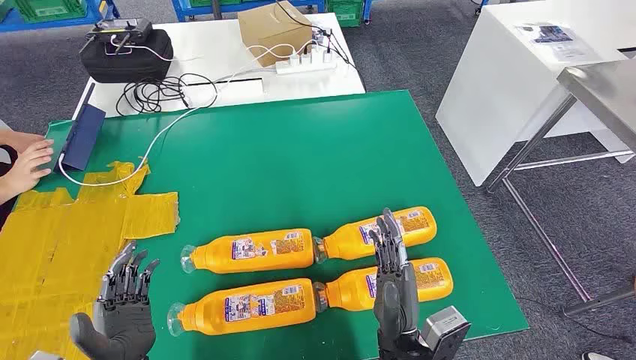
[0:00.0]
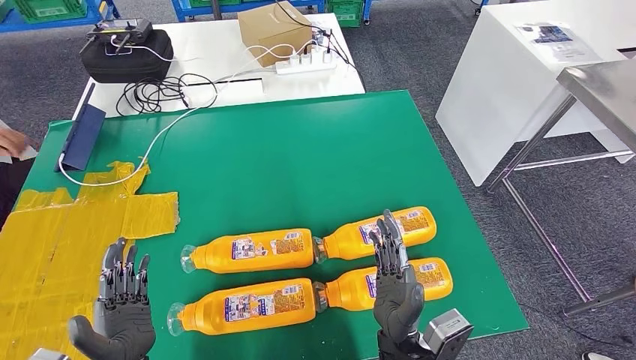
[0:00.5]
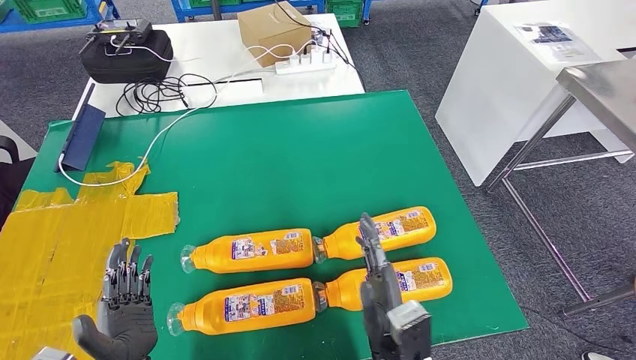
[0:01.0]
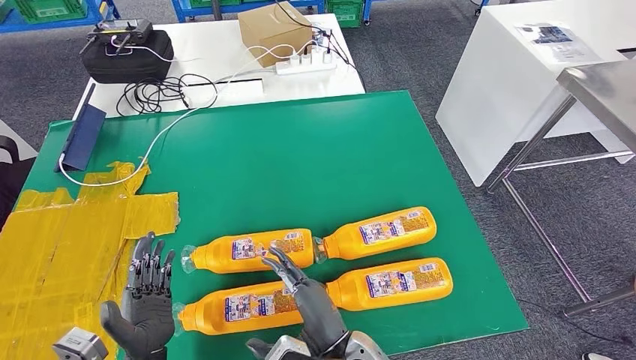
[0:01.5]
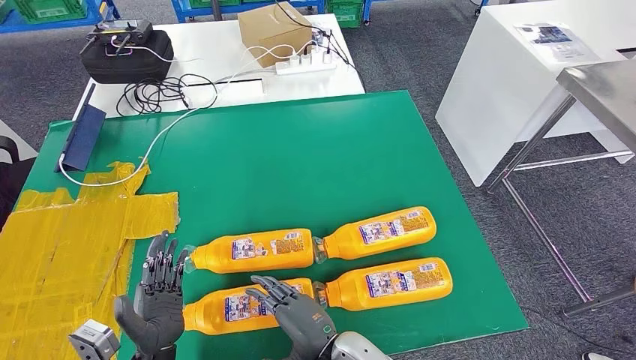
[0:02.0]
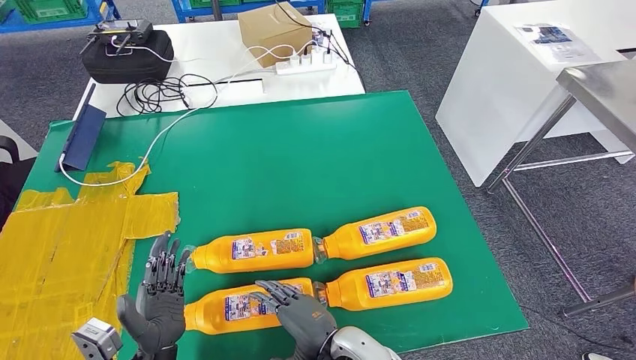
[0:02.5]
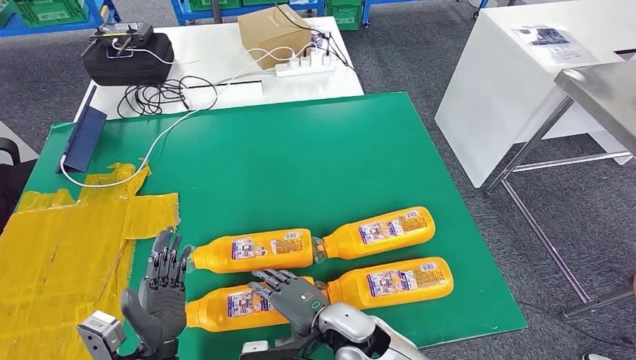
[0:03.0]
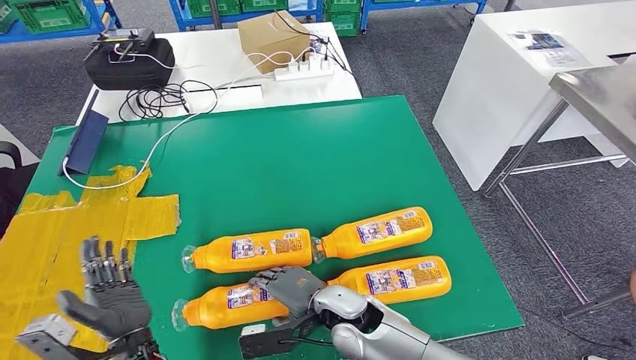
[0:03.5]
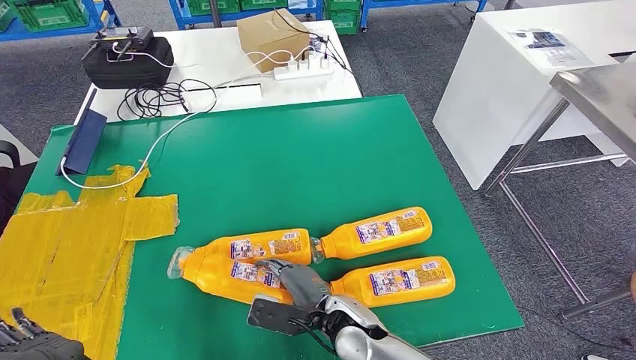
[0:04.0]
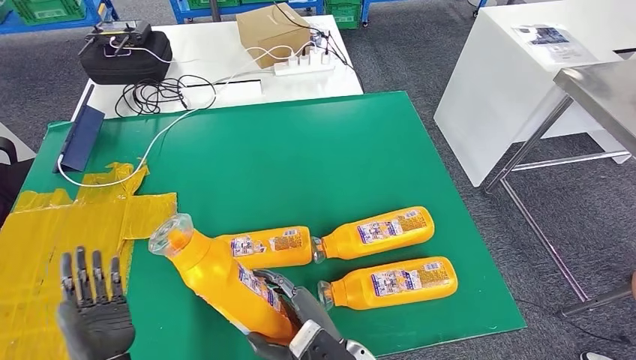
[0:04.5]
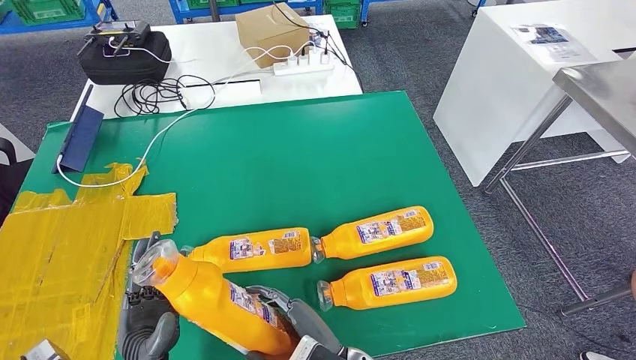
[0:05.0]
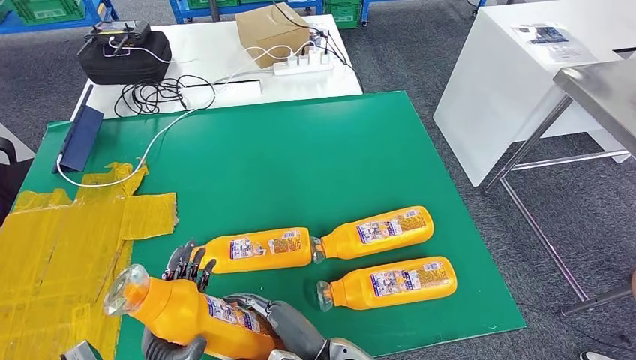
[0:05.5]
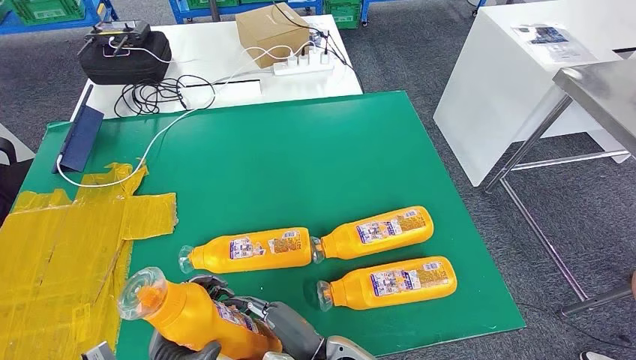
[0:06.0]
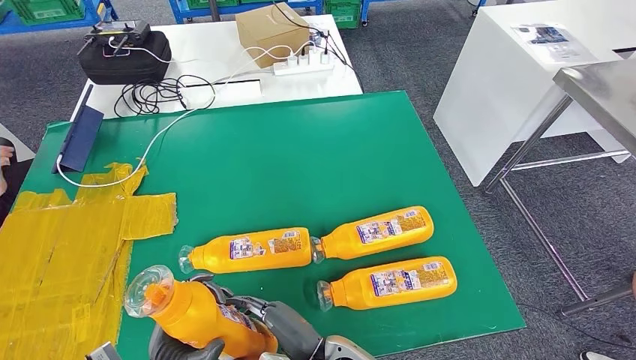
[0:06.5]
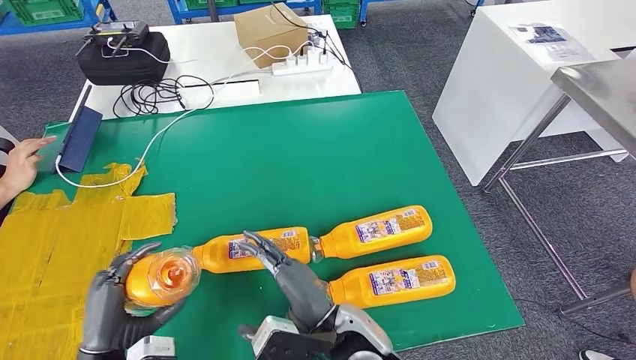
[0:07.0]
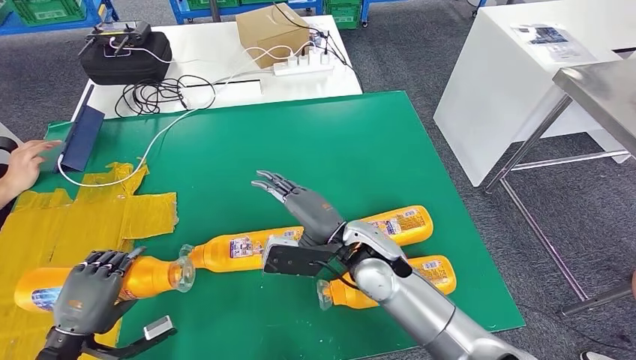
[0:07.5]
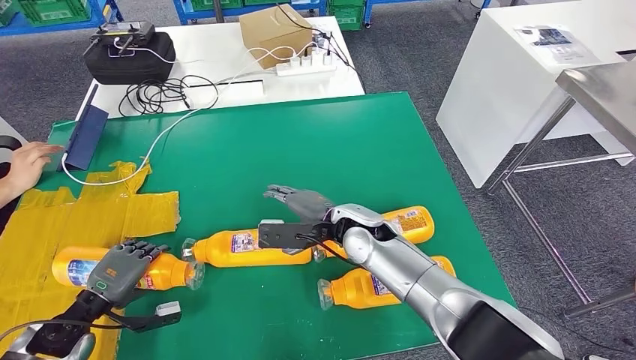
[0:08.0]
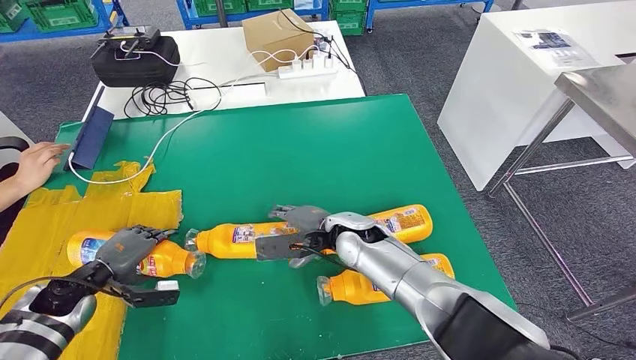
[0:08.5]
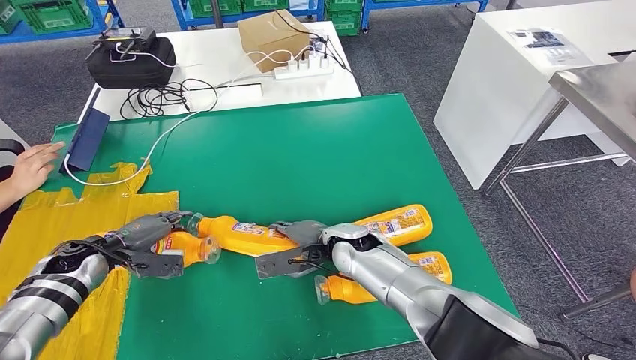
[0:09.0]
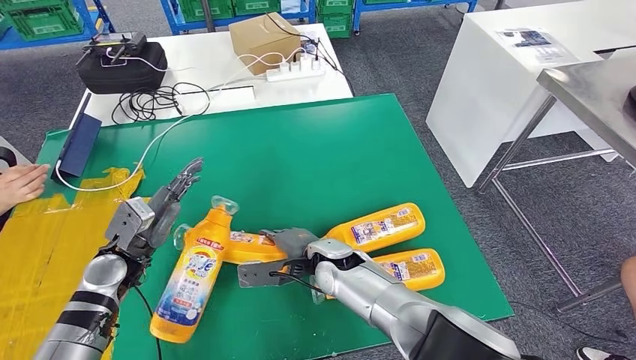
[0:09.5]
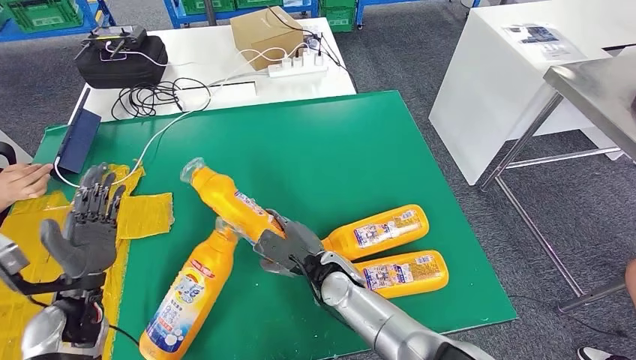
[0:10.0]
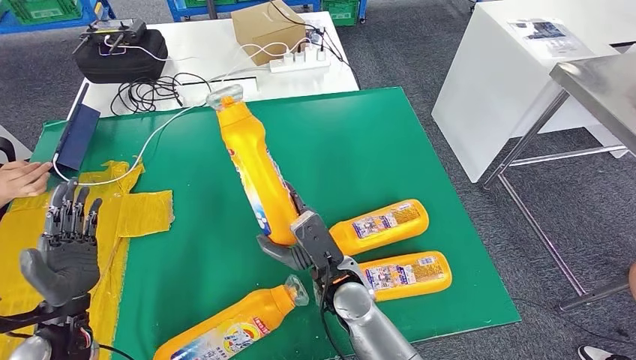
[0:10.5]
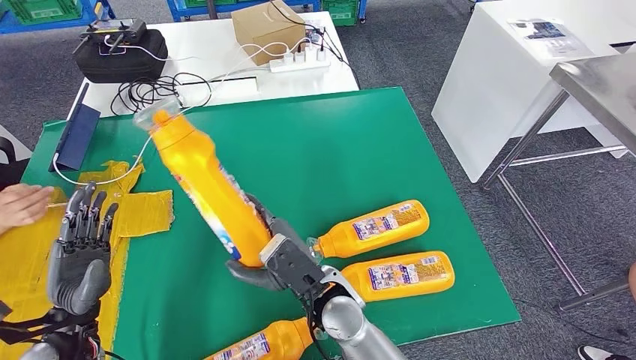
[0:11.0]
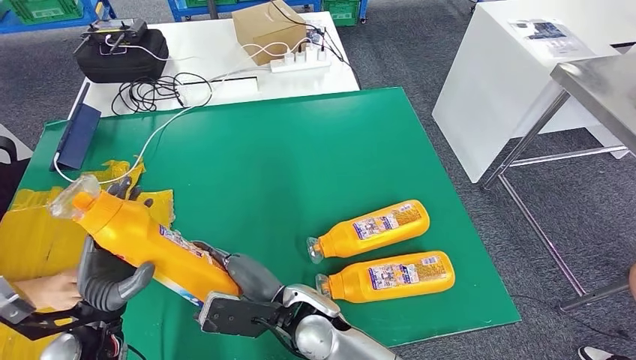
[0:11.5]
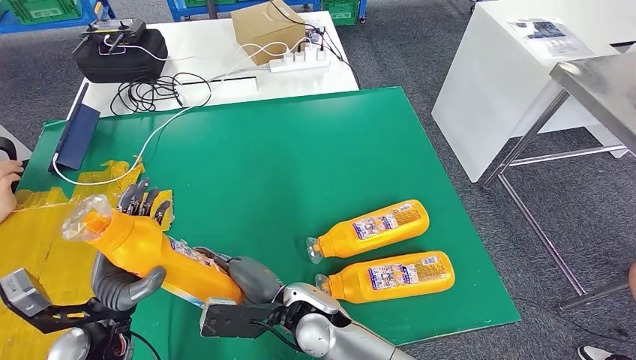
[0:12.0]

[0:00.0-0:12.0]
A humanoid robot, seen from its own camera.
Step, 0:00.0 to 0:05.5: Take the fast-moving consumer goods bottle from the table.
Step, 0:06.5 to 0:09.0: Flip the fast-moving consumer goods bottle to the front side.
Step, 0:09.5 to 0:11.5: Pick up the fast-moving consumer goods bottle from the table.

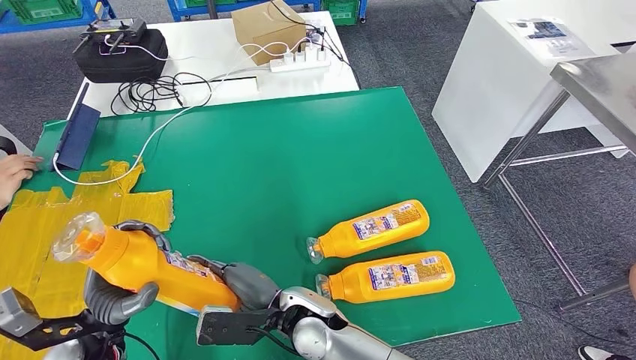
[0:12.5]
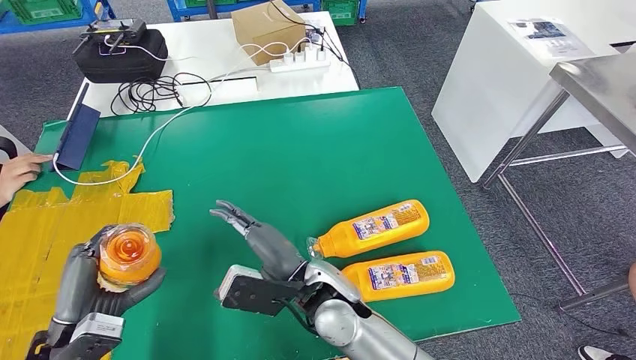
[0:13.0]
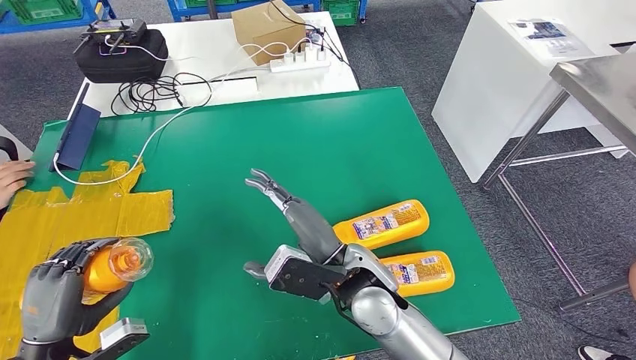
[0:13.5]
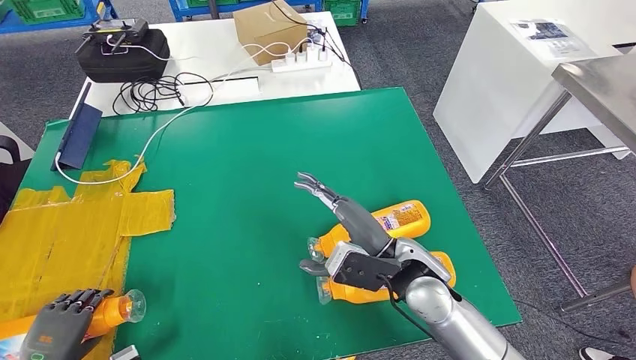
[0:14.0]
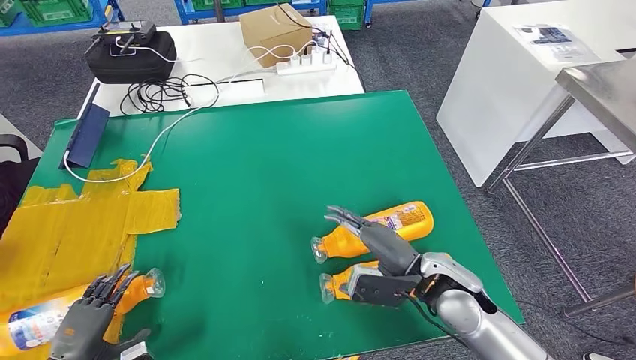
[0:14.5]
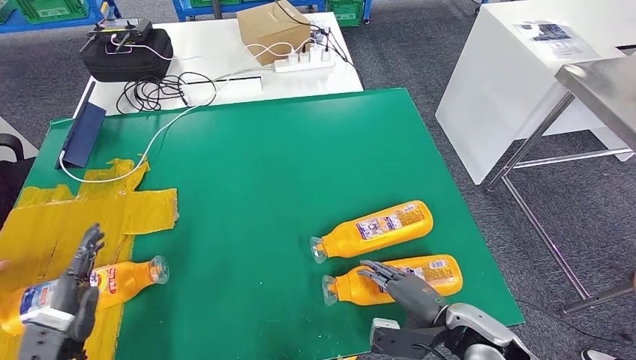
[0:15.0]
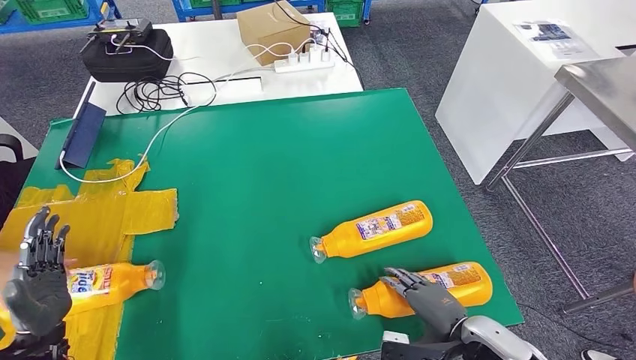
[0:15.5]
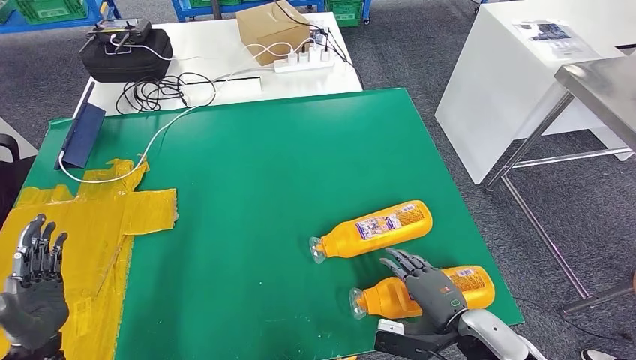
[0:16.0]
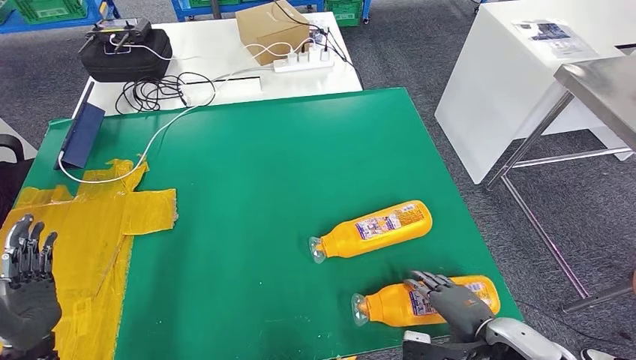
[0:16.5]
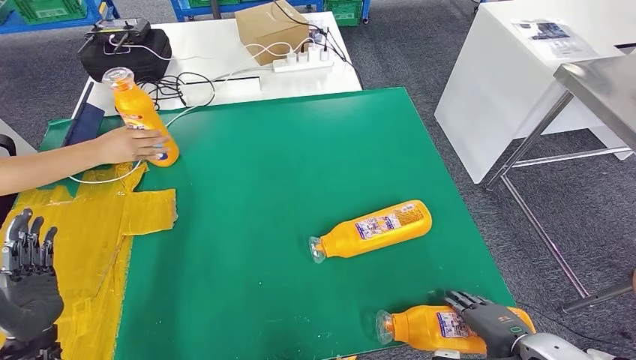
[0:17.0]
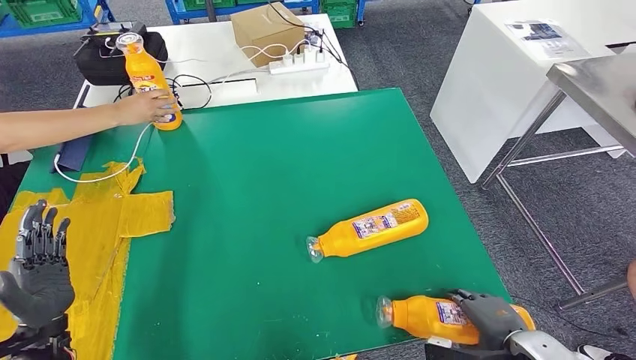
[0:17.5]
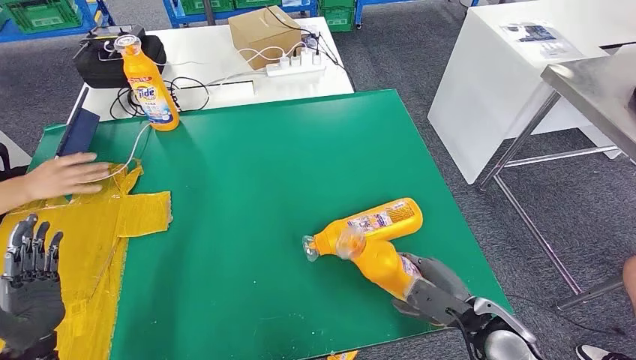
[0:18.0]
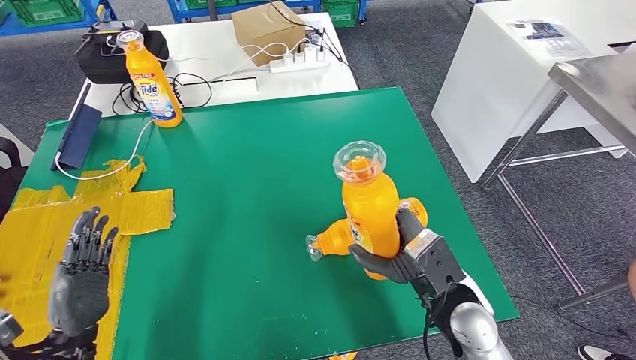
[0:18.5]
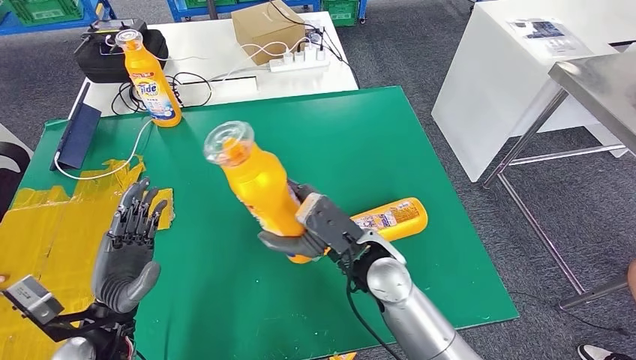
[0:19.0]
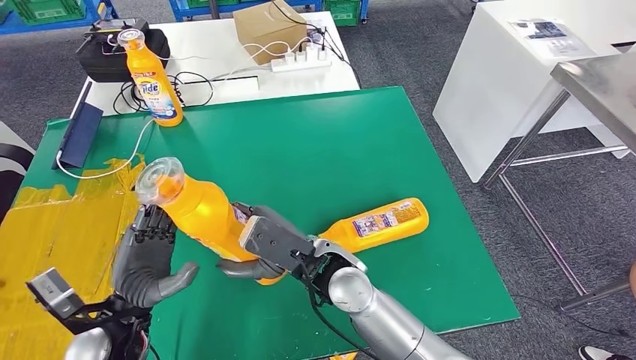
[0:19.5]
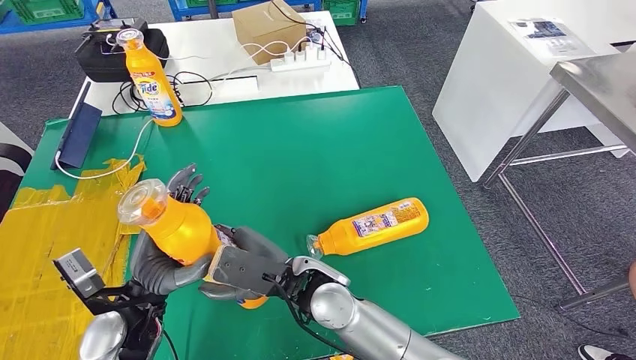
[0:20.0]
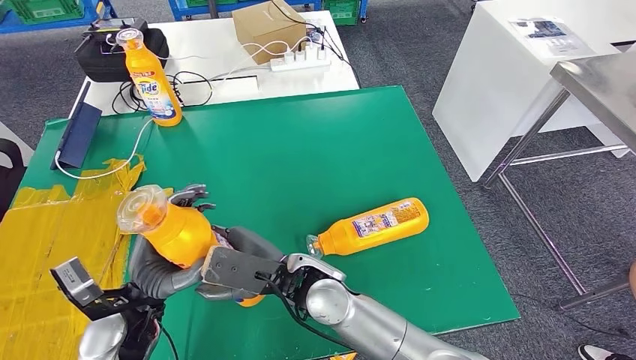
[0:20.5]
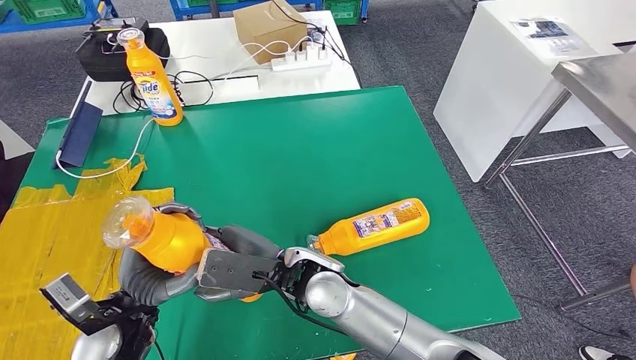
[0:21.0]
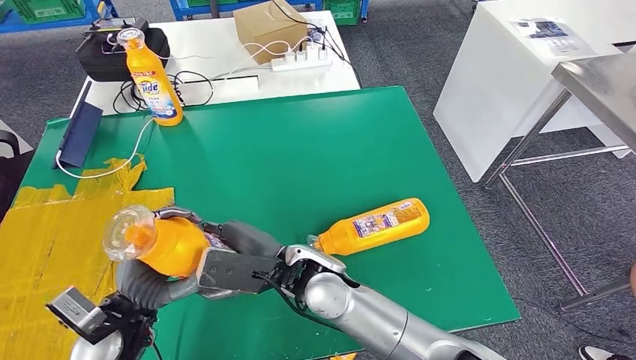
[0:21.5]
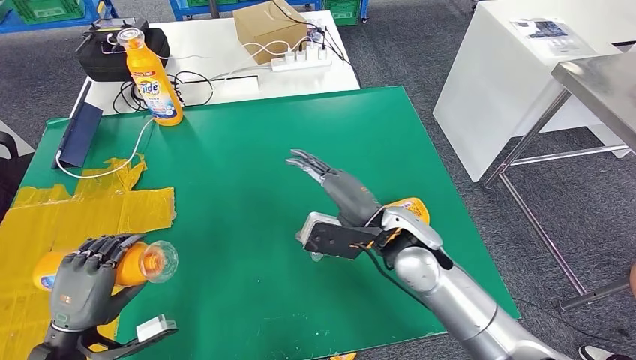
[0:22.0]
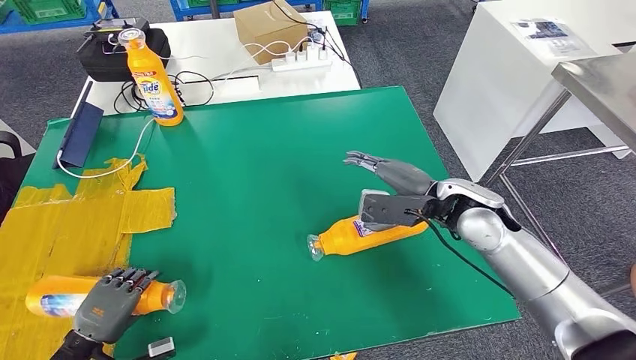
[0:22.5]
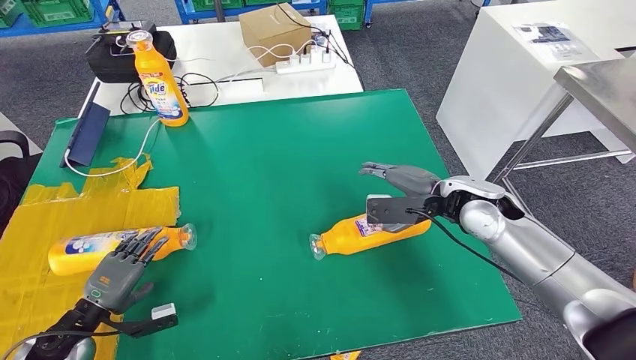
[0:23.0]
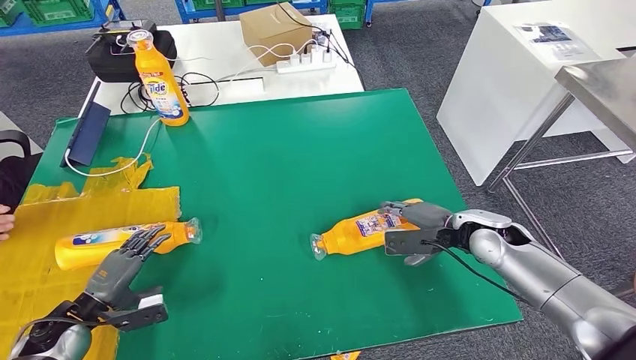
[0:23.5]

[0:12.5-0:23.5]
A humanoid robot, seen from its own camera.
Step, 0:12.5 to 0:14.5: Flip the fast-moving consumer goods bottle to the front side.
Step, 0:15.0 to 0:19.0: Pick up the fast-moving consumer goods bottle from the table.
Step, 0:19.5 to 0:23.5: Flip the fast-moving consumer goods bottle to the front side.
0:20.0 to 0:21.5: The hands make only small movements.
